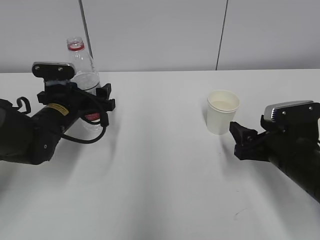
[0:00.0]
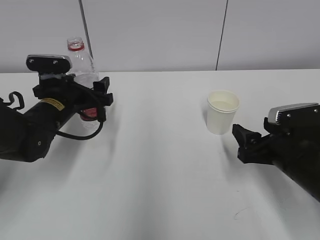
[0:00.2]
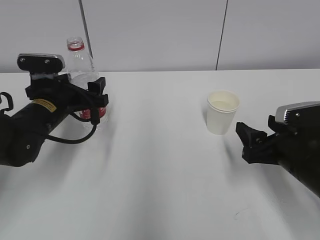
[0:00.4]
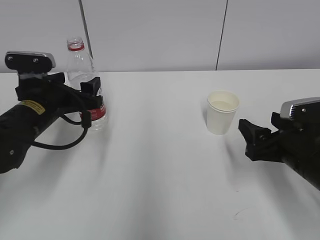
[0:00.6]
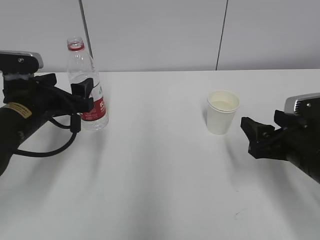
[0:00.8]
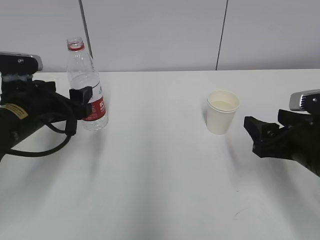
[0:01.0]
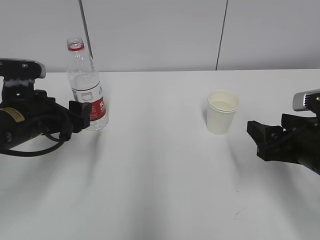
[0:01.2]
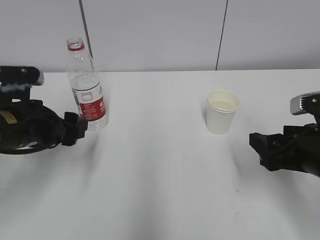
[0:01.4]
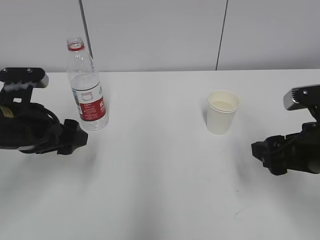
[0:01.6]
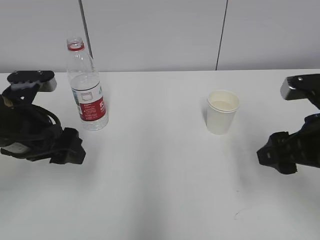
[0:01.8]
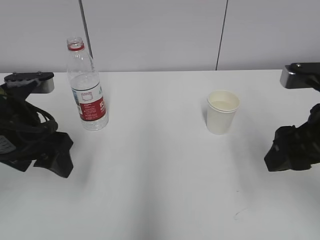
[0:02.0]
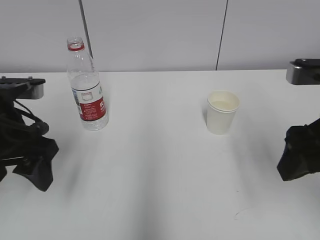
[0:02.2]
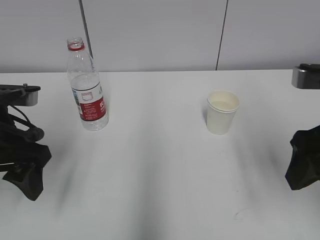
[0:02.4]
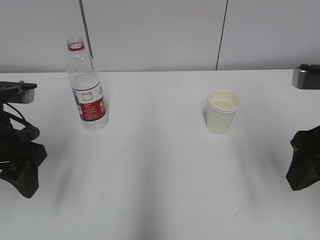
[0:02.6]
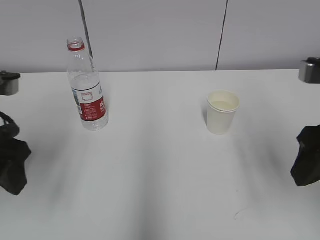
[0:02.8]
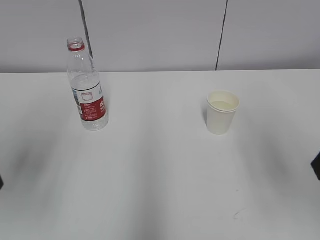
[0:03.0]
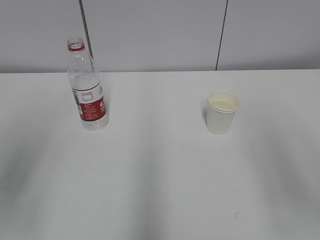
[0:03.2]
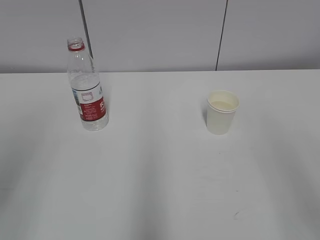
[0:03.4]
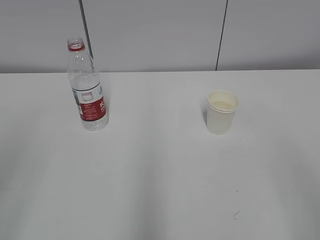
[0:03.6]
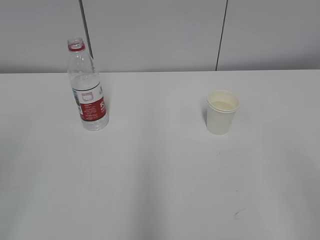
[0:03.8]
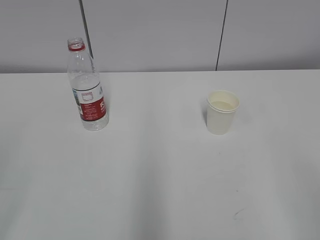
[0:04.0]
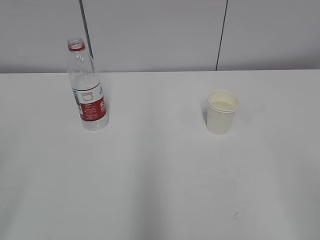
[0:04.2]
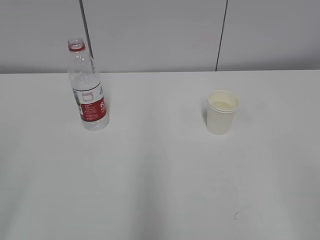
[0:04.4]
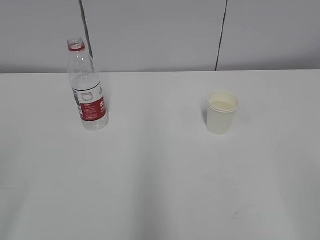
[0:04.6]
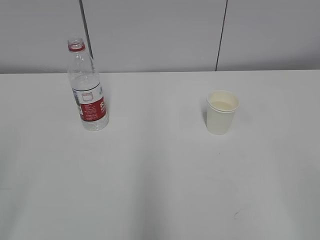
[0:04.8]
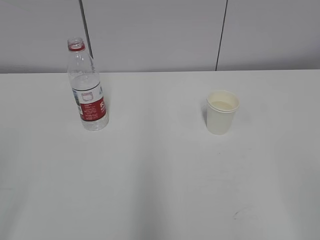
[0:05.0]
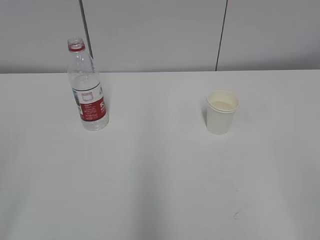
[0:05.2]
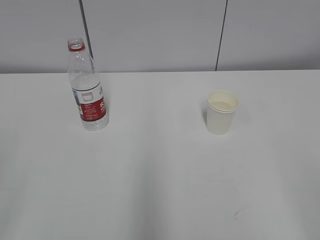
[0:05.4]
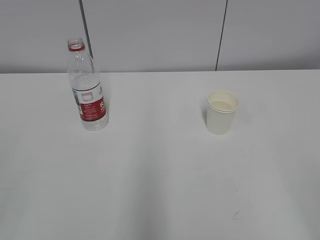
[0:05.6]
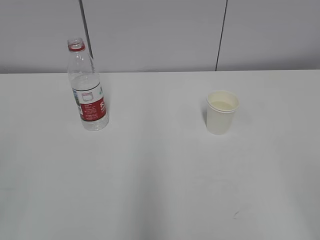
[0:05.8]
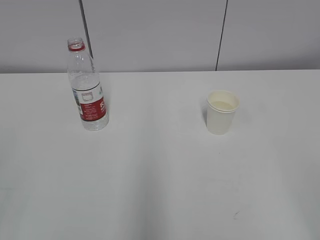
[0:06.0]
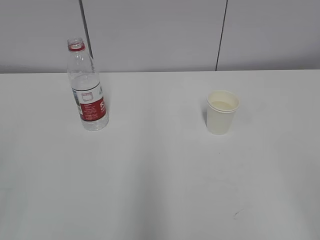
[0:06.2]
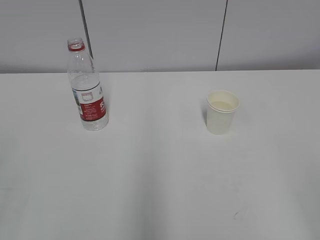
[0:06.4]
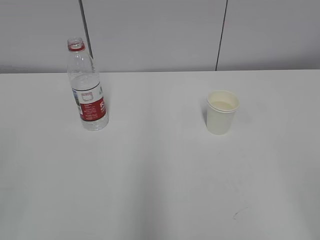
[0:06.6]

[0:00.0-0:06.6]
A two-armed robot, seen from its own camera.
0:00.0 to 0:01.6: The right gripper travels upward by roughly 10 cm. The left gripper goes roughly 15 cm backward and upward.
0:01.6 to 0:03.2: The right gripper is displaced upward and backward by about 15 cm; the left gripper heads backward, upward and to the left, covering about 20 cm.
0:03.2 to 0:05.0: The left gripper heads backward, covering about 15 cm.
